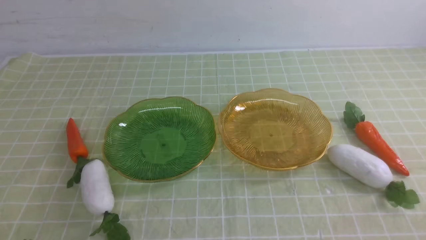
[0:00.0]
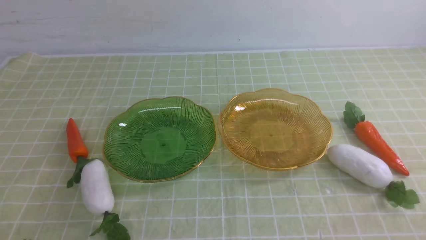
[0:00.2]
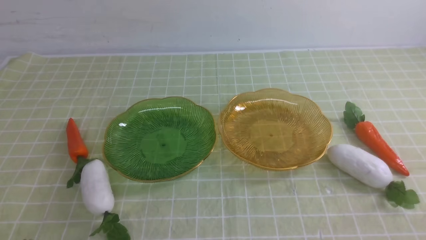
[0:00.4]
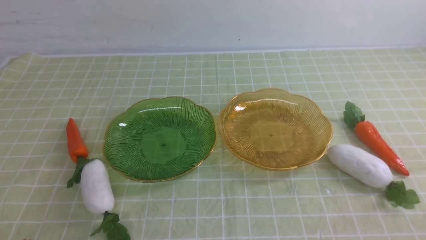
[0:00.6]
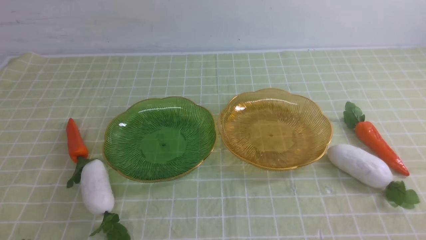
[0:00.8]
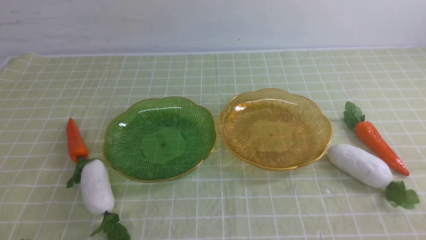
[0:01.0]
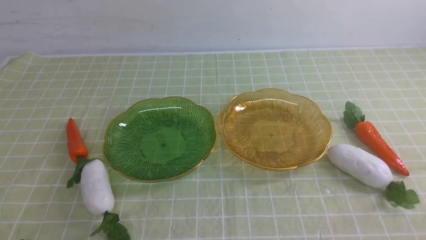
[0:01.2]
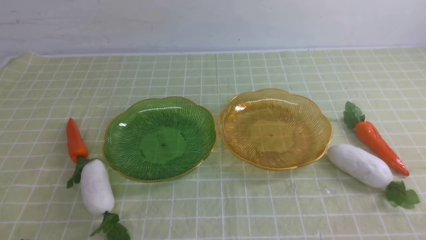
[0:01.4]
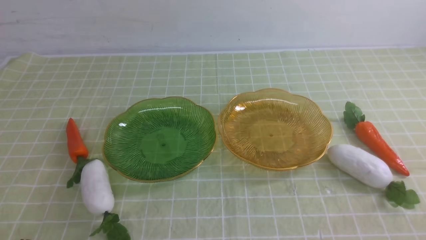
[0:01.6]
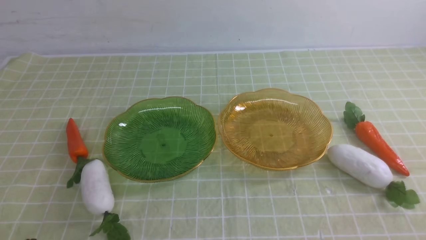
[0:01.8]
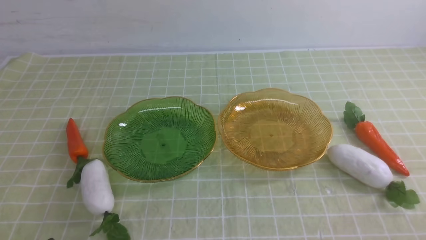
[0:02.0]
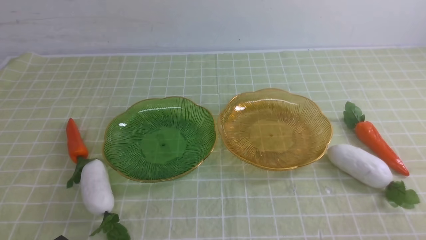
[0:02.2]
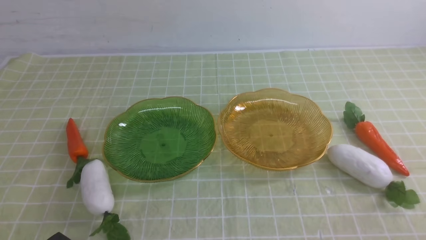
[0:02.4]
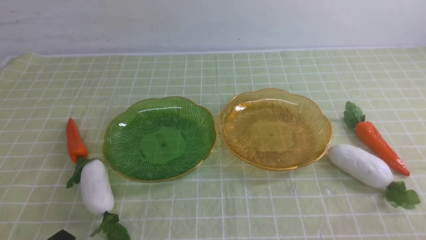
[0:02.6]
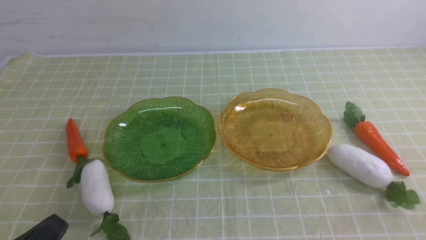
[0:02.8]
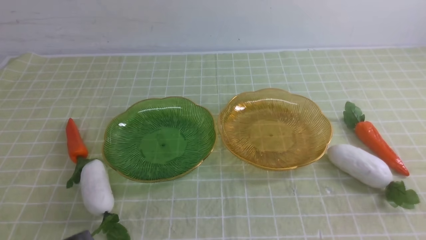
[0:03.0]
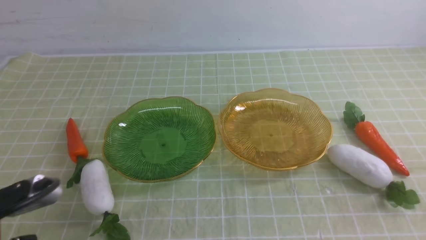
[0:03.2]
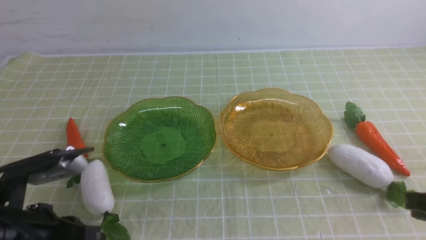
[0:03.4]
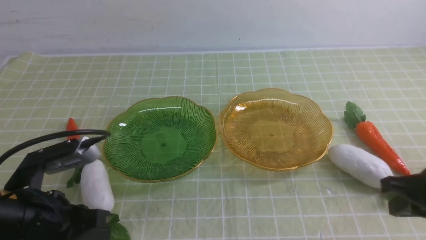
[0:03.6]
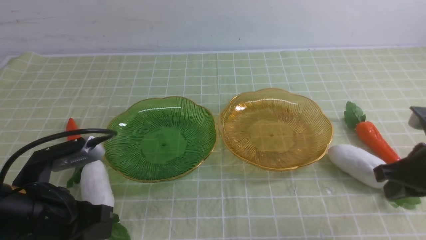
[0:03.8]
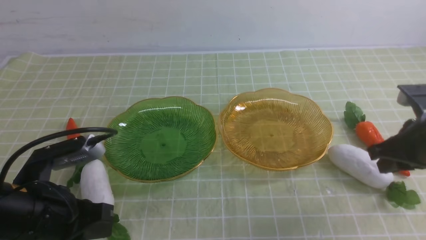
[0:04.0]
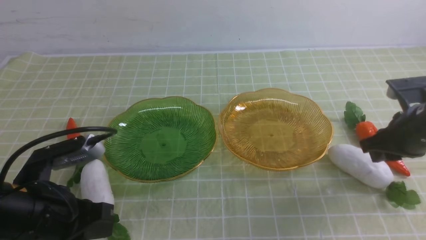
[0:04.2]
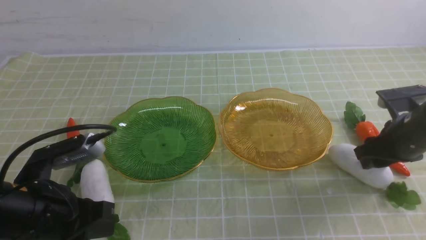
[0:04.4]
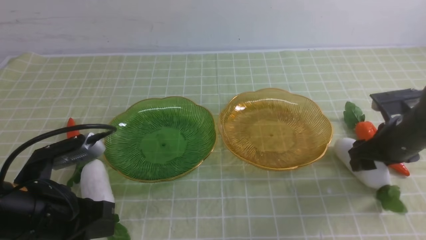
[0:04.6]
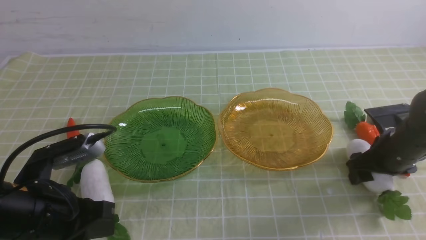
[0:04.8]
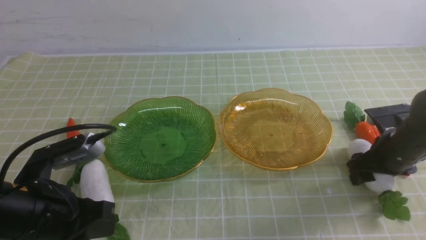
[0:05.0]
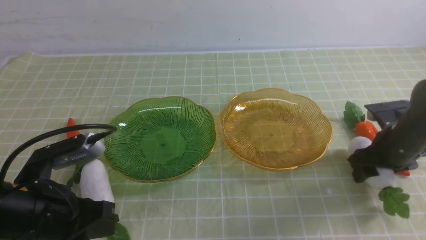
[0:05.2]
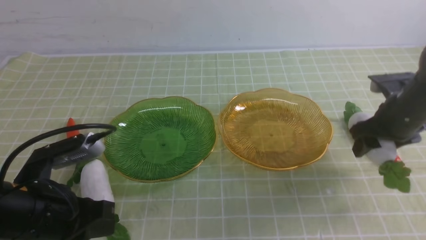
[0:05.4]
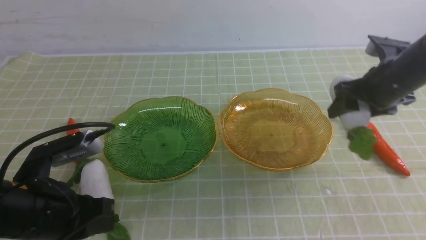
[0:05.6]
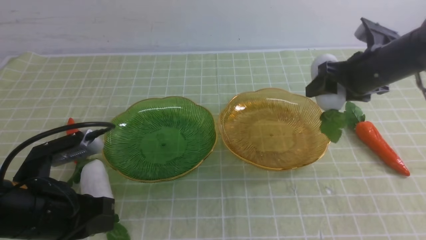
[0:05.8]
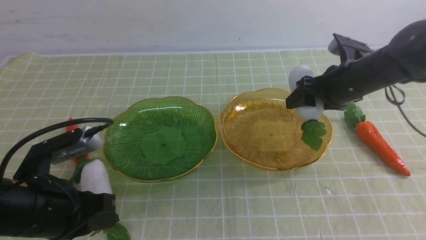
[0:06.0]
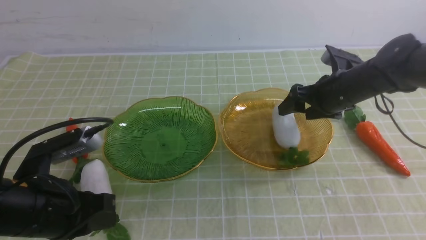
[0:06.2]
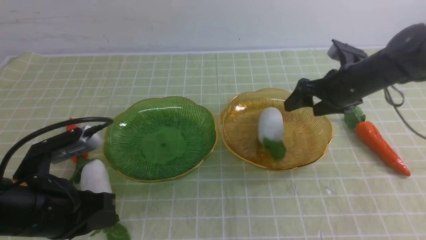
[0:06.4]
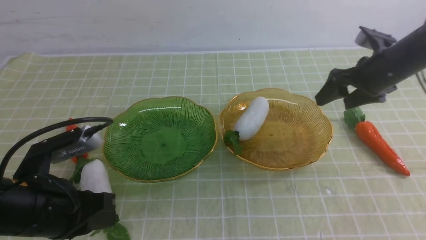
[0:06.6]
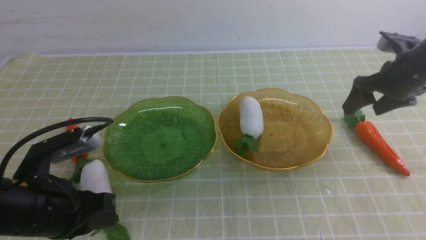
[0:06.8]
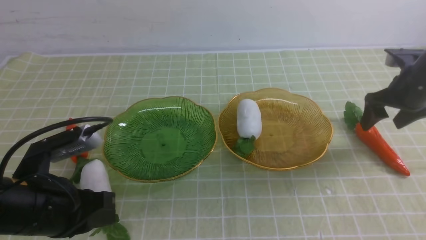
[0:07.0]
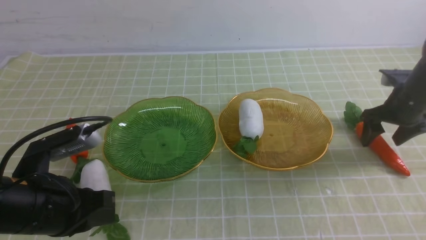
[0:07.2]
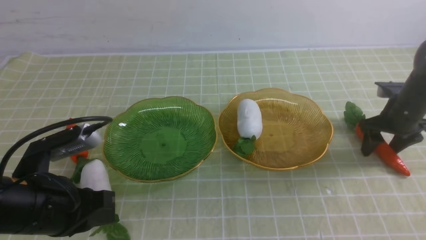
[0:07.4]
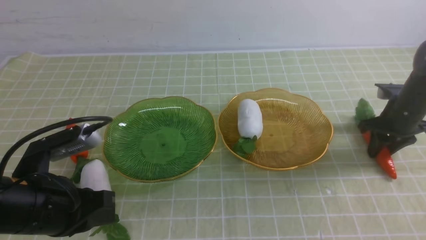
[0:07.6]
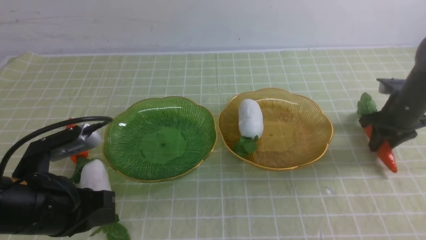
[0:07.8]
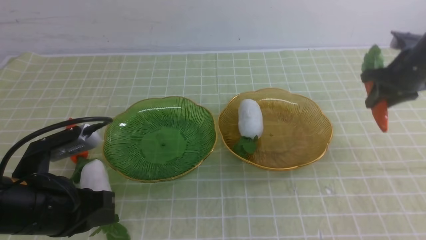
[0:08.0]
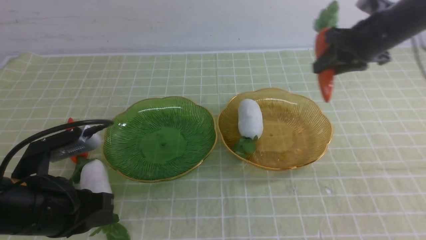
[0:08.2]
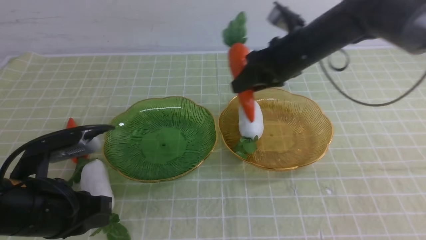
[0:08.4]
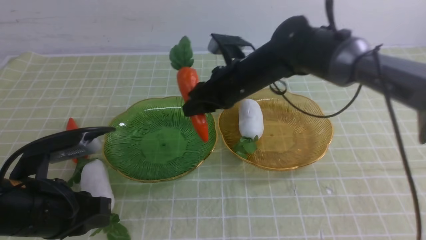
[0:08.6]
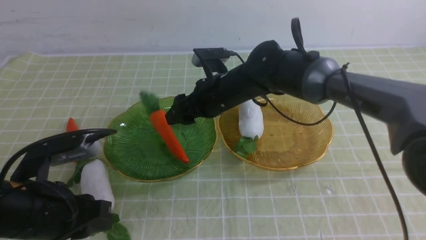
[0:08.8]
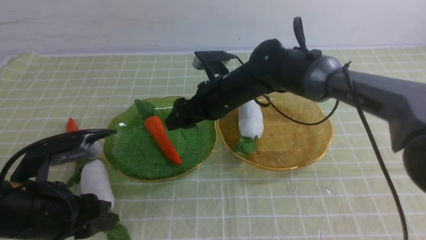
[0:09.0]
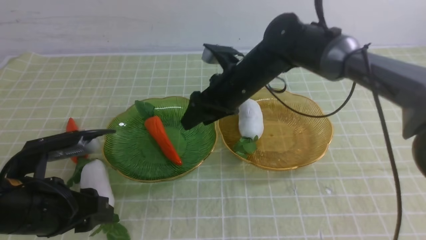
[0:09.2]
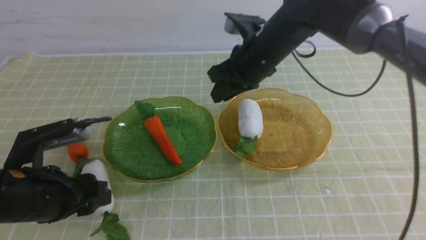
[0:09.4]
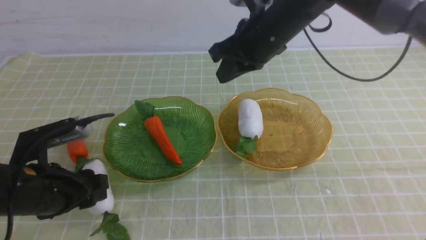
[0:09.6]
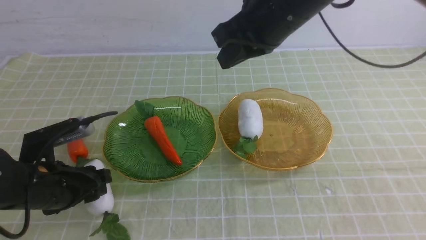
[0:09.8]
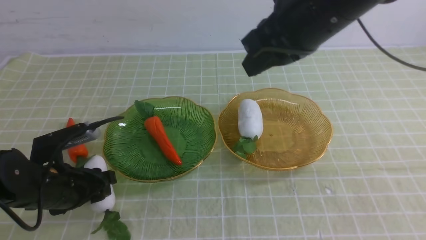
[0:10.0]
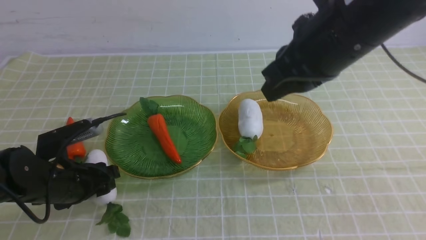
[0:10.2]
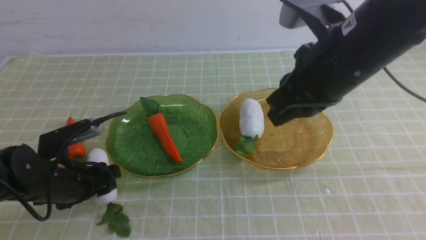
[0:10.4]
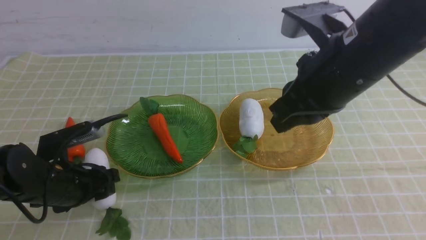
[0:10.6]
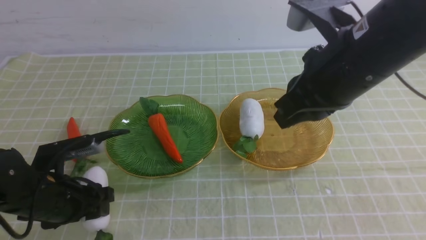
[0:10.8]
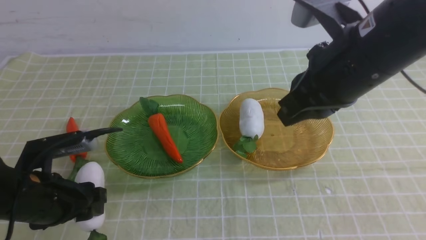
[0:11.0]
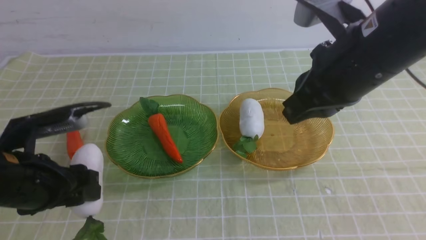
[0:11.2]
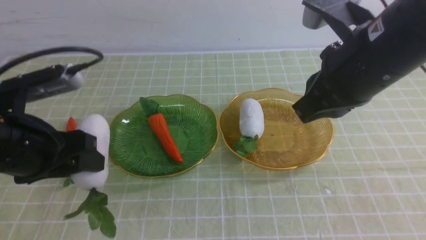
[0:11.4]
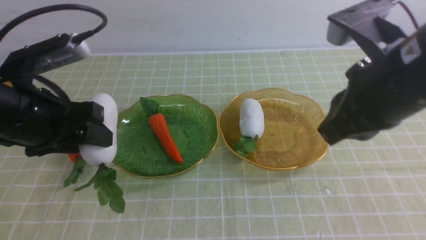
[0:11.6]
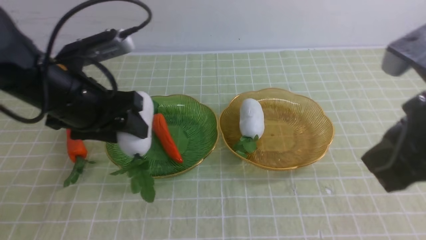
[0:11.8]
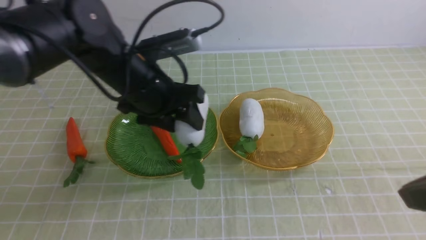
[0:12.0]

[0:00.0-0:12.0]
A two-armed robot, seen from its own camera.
Step, 0:00.0 to 0:06.8: use the right arm to grab a radish and put it into the right plate.
Step, 0:07.2 to 0:09.4: use the right arm to grab a carrot and put it into the left plate.
0:00.0 to 0:01.6: The two grippers keep their place.
0:03.0 to 0:04.4: The right gripper heads forward, covering about 25 cm, and opens, while the left gripper shifts some 10 cm forward.
0:04.4 to 0:06.0: The right gripper moves forward and to the left, approximately 10 cm.
0:06.0 to 0:07.6: The right gripper is displaced to the right and downward by about 15 cm.
0:07.6 to 0:09.0: The left gripper opens its fingers, while the right gripper is displaced to the left by approximately 30 cm.
0:09.0 to 0:10.4: The left gripper travels forward and downward by about 10 cm. Meanwhile the right gripper goes some 25 cm backward, upward and to the right, and closes up.
0:10.4 to 0:12.0: The right gripper goes approximately 15 cm backward and to the right; the left gripper is displaced upward, to the right and forward by roughly 20 cm.

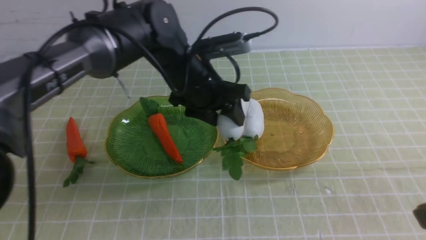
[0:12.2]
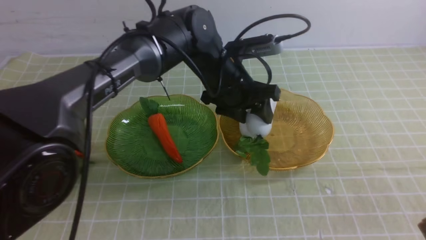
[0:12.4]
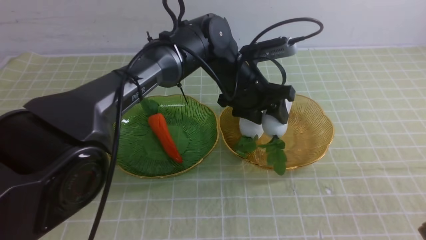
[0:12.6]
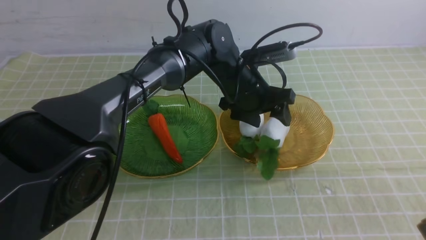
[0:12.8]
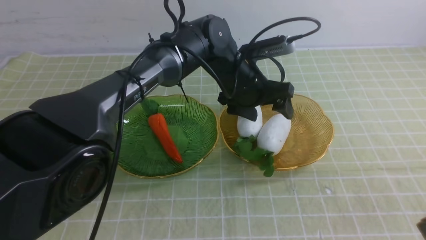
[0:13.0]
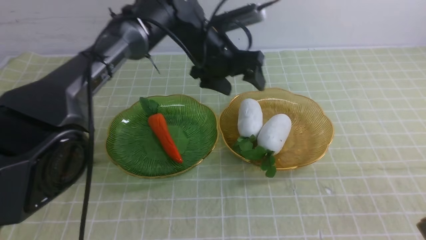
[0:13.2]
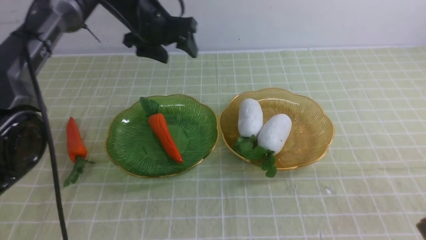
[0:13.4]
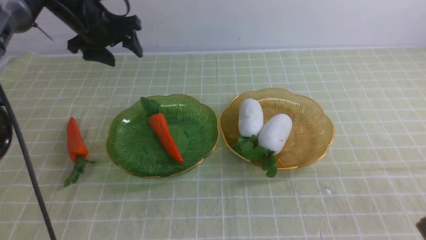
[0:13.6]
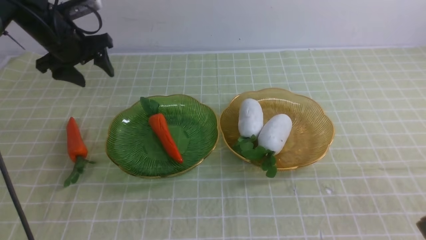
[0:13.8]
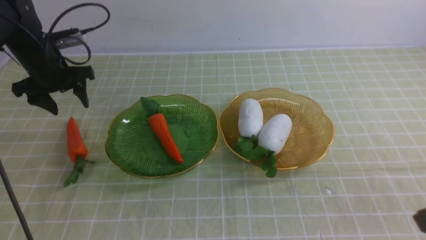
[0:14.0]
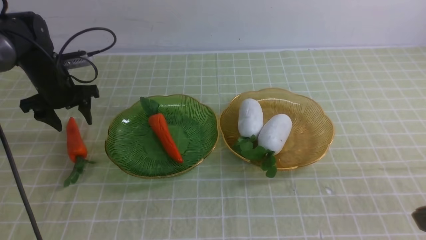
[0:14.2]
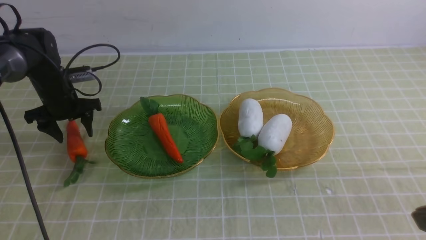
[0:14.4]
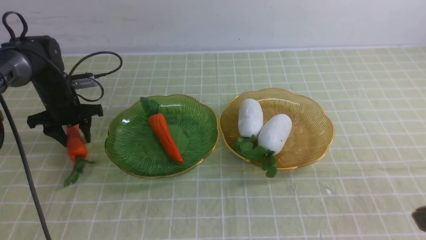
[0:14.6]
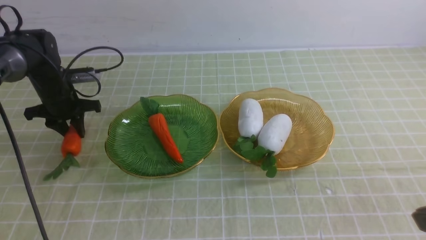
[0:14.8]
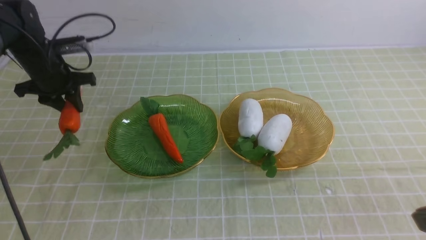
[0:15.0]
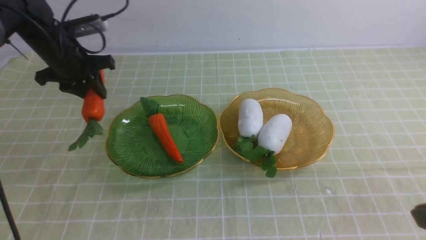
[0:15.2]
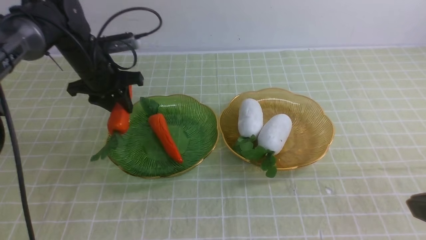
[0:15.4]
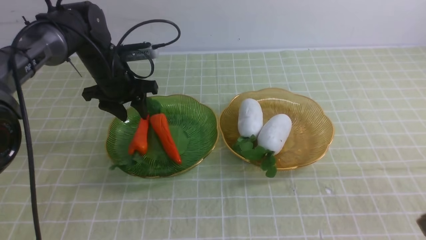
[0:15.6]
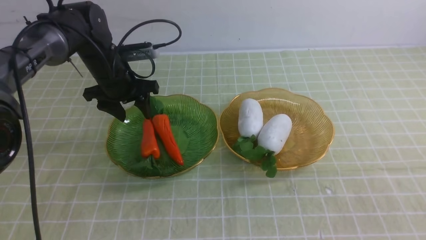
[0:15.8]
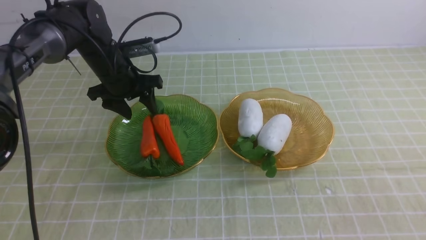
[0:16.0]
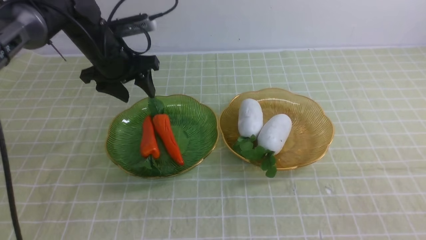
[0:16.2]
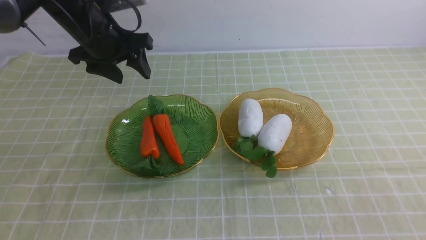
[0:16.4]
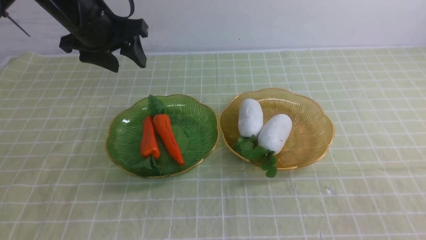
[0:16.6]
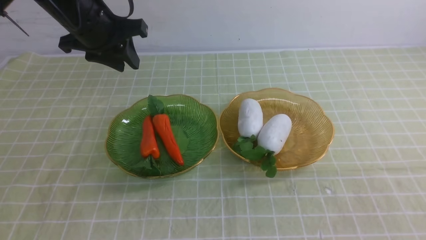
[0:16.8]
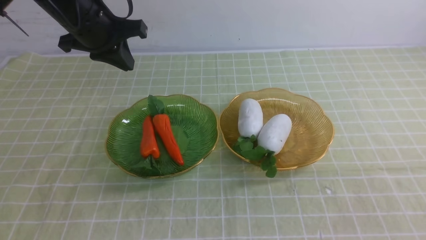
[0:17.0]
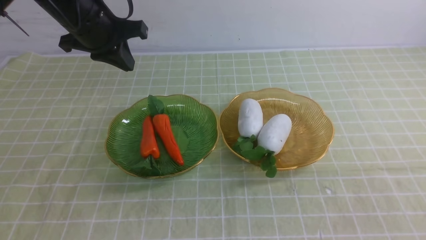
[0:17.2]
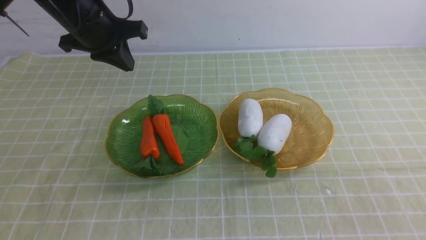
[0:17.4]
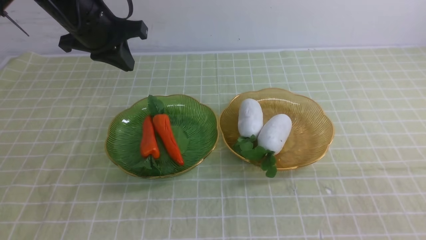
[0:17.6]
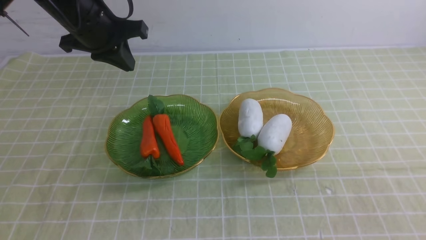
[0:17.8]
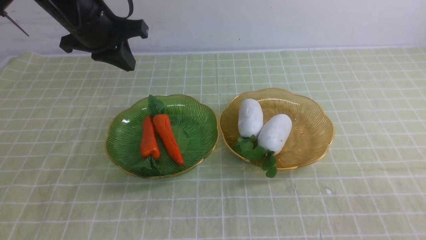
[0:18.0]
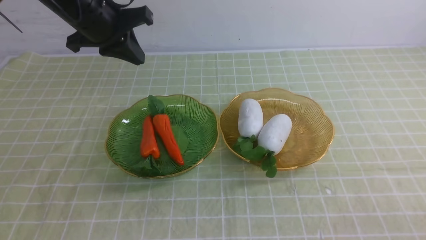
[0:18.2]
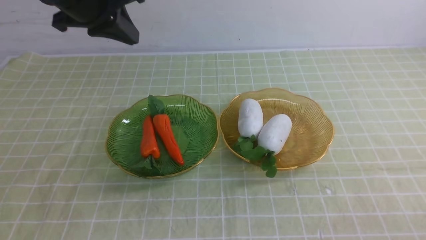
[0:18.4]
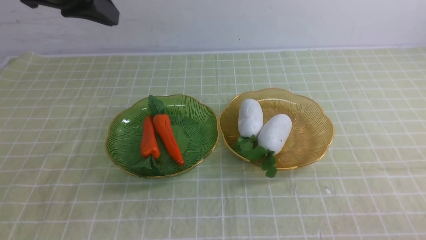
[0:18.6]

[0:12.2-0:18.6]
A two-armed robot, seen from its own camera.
Step, 0:13.6 to 0:16.6: use the left arm to grab a carrot and put it into the left plate.
0:12.2 to 0:13.8: The left gripper heads to the left, covering approximately 25 cm.
0:13.8 to 0:15.4: The left gripper is displaced to the right by roughly 5 cm, moves roughly 10 cm downward and comes back, and closes.
0:15.4 to 0:17.0: The right gripper moves some 5 cm; the left gripper moves upward, about 10 cm, and closes.
0:17.0 to 0:18.6: The left gripper is displaced upward and backward by roughly 10 cm.
